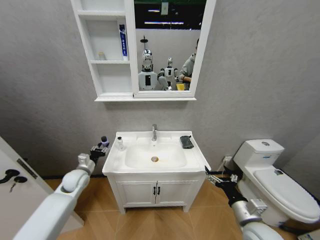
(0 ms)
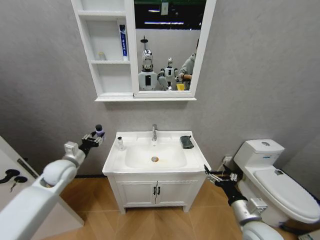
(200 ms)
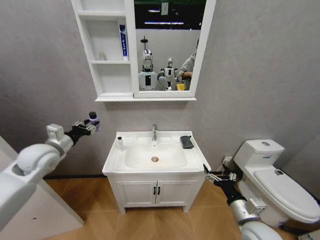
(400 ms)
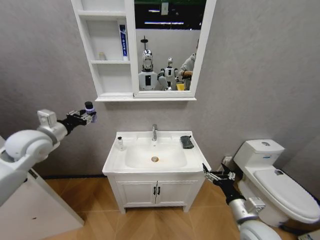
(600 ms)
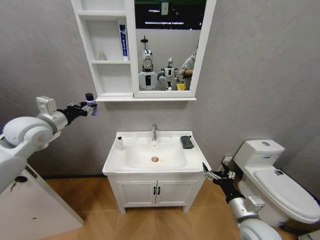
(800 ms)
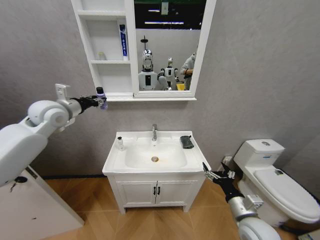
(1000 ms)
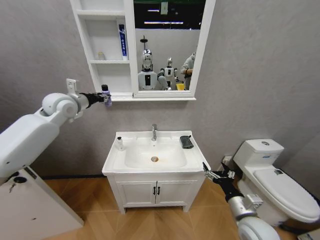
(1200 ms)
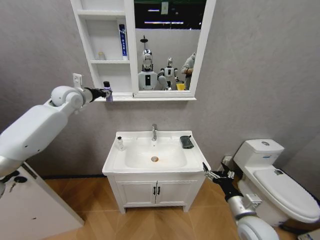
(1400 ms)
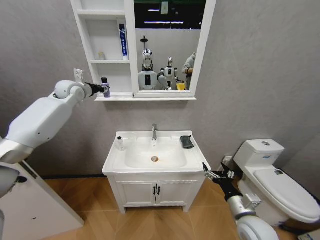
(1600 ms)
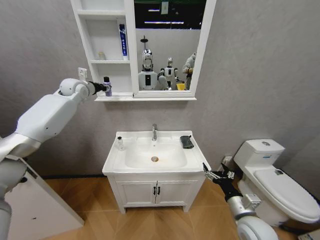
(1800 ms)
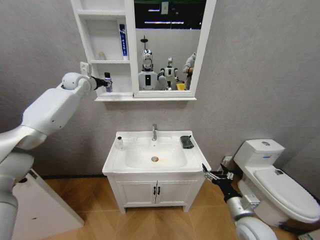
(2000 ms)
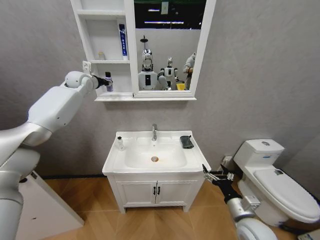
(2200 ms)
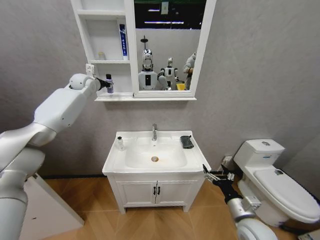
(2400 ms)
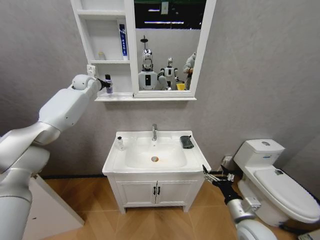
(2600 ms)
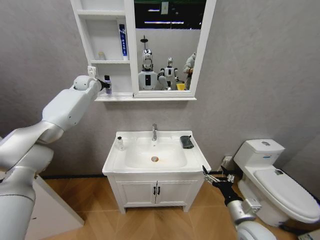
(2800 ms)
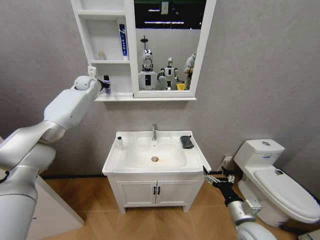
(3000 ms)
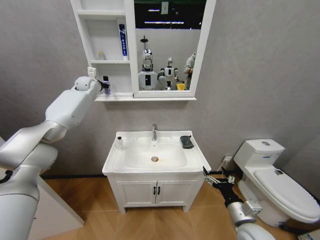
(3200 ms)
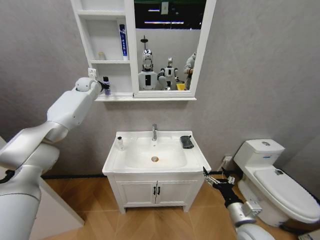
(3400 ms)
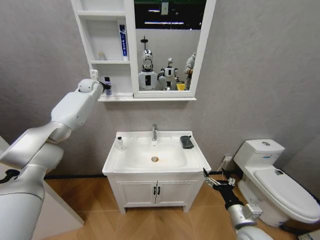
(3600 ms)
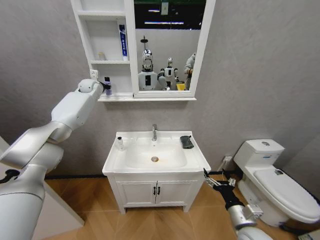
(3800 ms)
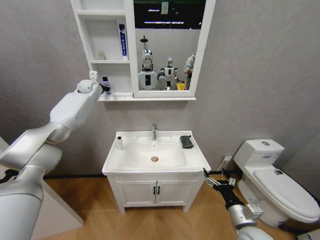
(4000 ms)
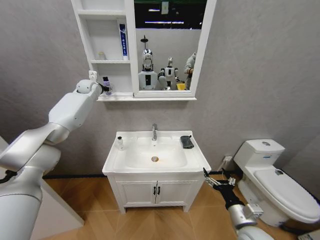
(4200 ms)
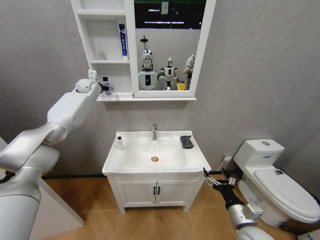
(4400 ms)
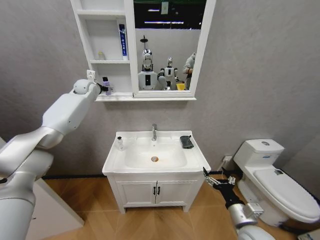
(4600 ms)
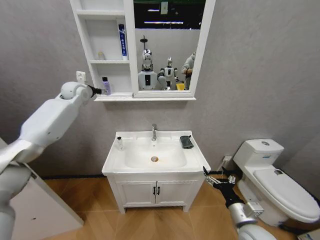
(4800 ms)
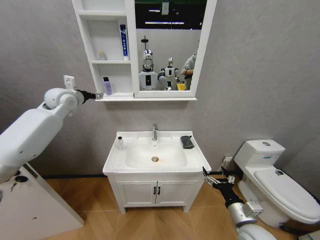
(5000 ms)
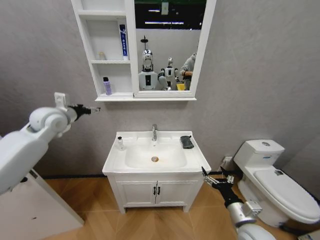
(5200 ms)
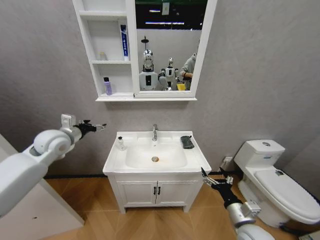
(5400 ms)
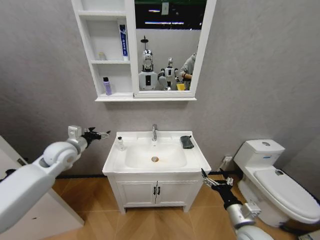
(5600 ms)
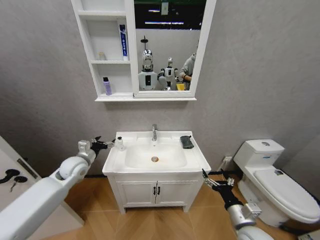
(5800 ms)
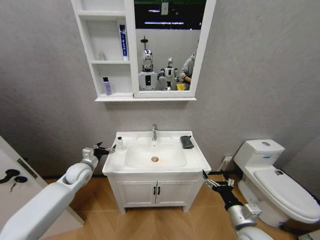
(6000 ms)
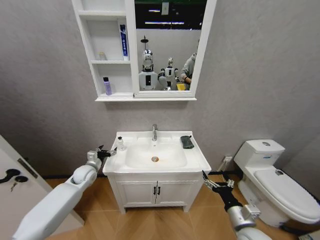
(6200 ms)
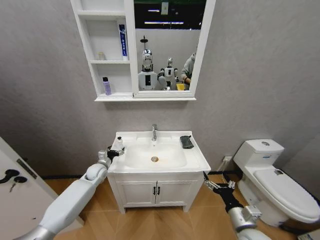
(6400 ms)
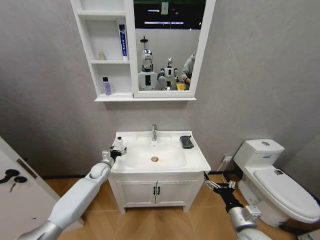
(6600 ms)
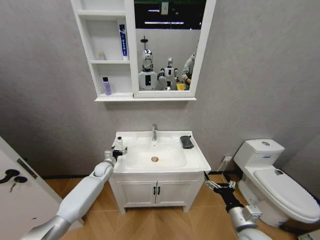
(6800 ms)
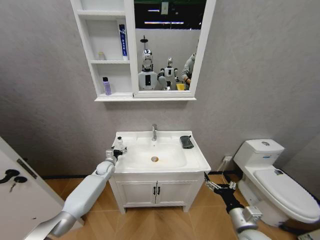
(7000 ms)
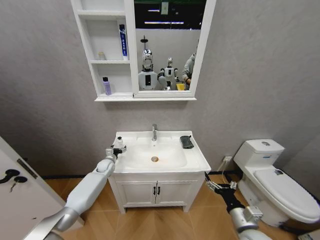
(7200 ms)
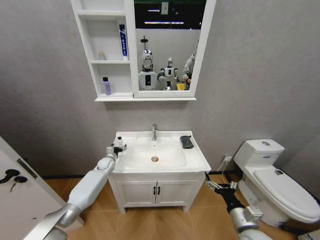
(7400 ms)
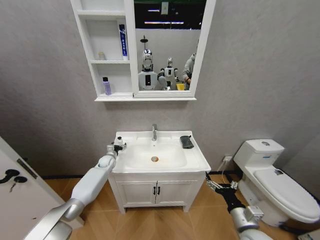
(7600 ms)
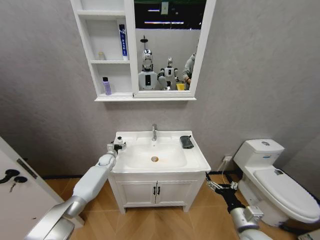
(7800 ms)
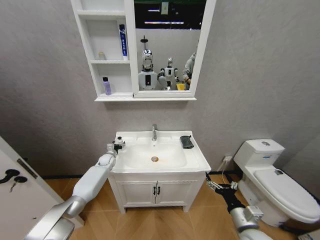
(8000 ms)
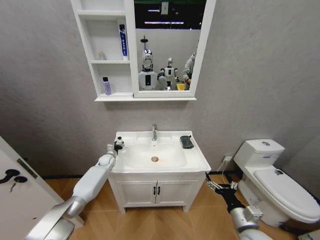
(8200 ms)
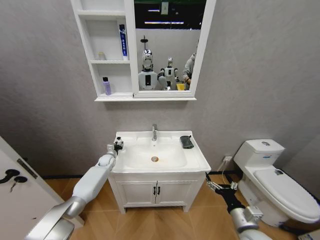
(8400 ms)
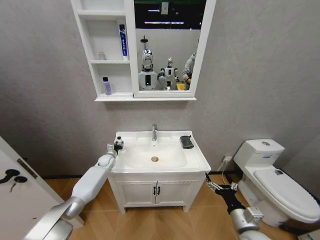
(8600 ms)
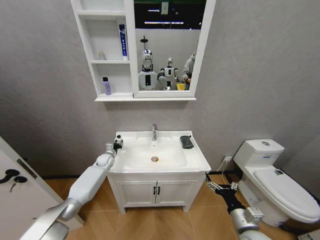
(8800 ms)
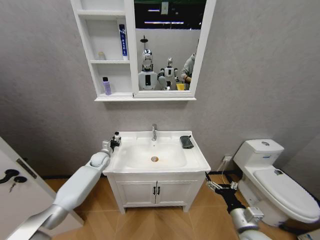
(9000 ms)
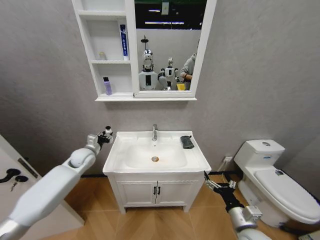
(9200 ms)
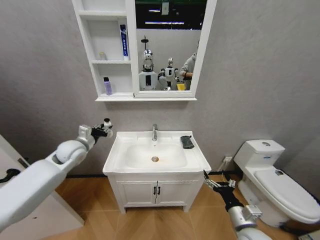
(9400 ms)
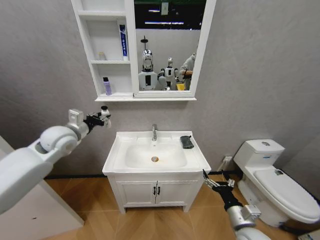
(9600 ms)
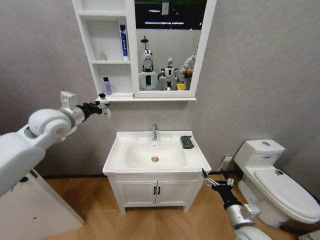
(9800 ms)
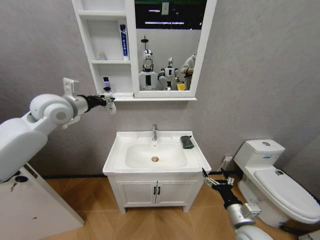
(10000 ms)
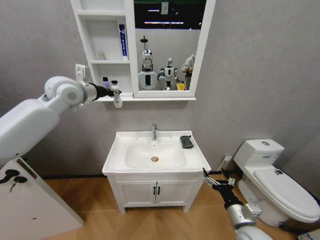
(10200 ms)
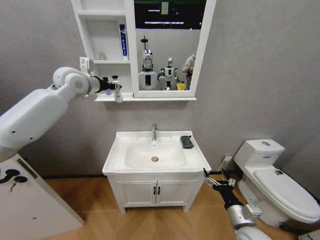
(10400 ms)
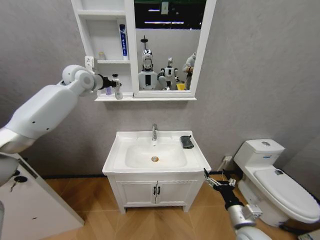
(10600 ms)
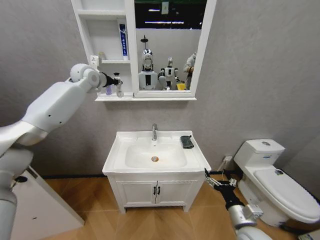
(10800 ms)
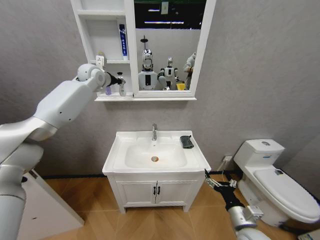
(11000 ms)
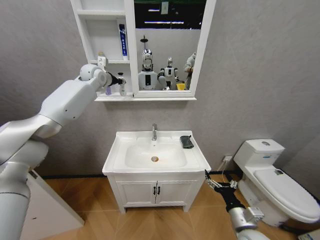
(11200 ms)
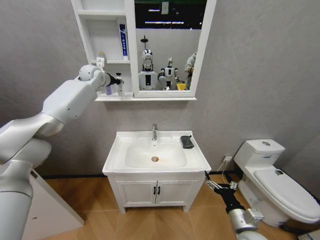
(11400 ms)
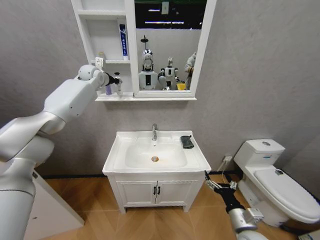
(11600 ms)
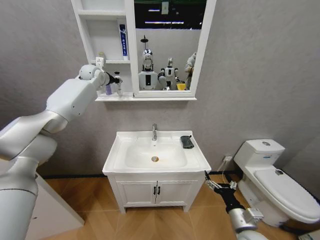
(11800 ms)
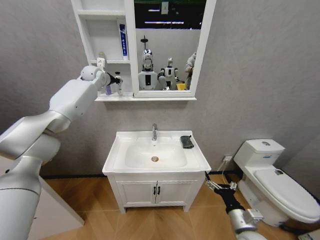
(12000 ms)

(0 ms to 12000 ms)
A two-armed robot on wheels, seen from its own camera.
Task of the whole recording: Move facial cleanser and shampoo from washbasin to cabinet, then wipe washbasin with towel.
0 ms - 1600 ms: The left gripper is displaced upward and forward by about 40 cm.
1600 ms - 3000 ms: The left gripper goes about 10 cm forward.
3000 ms - 4400 ms: The left gripper opens its fingers.
4400 ms - 6000 ms: The left gripper shifts about 40 cm downward and backward.
6000 ms - 7600 ms: The left gripper travels forward and downward by about 20 cm.
7600 ms - 9000 ms: The left gripper travels upward by some 5 cm, and closes.
9000 ms - 10400 ms: The left gripper moves upward, some 40 cm.
10400 ms - 12000 ms: The left gripper moves forward, roughly 15 cm.

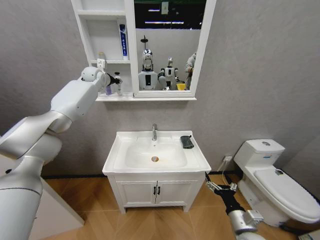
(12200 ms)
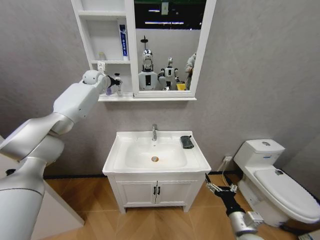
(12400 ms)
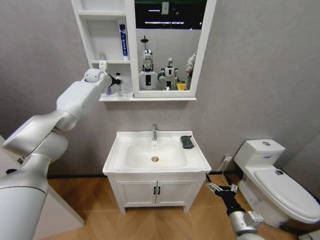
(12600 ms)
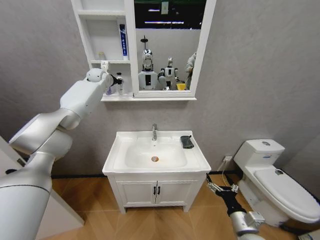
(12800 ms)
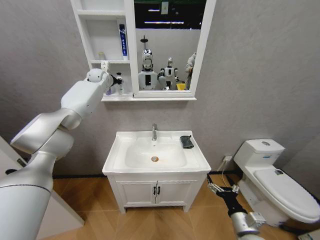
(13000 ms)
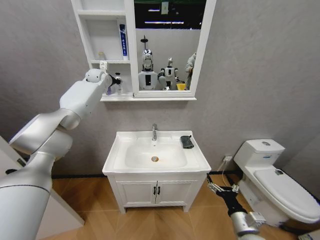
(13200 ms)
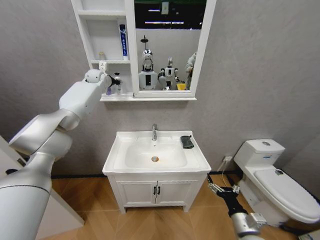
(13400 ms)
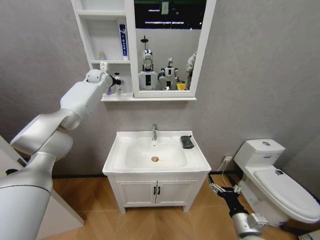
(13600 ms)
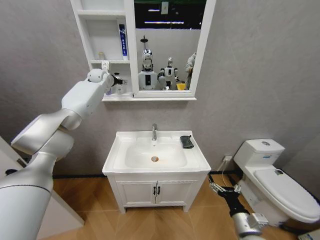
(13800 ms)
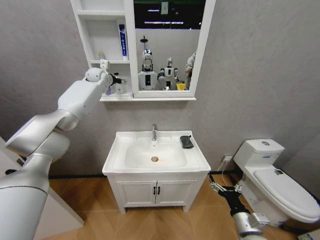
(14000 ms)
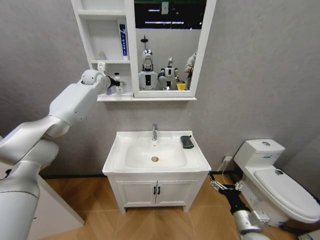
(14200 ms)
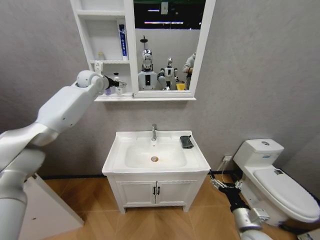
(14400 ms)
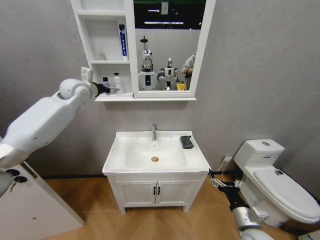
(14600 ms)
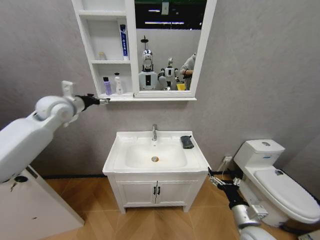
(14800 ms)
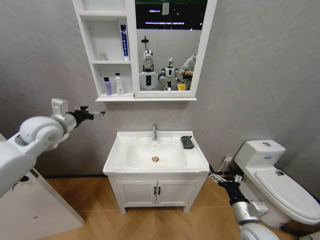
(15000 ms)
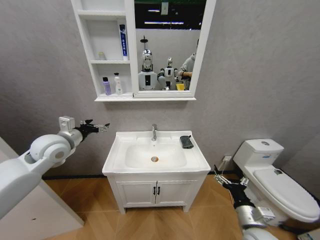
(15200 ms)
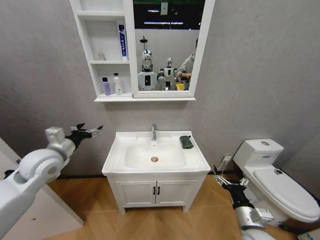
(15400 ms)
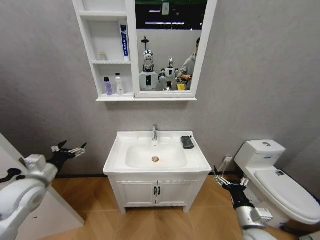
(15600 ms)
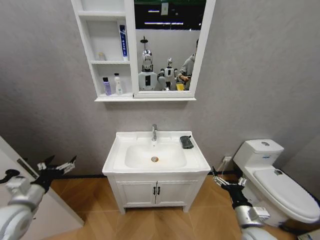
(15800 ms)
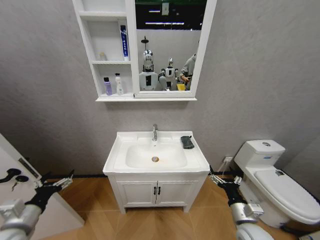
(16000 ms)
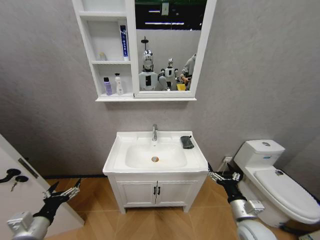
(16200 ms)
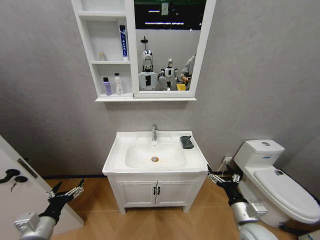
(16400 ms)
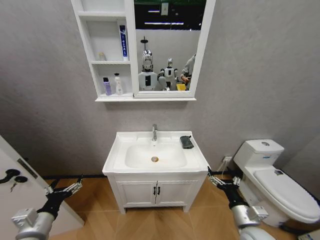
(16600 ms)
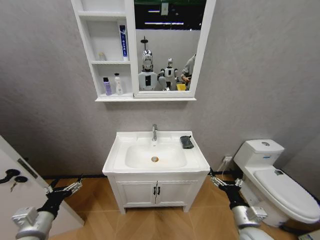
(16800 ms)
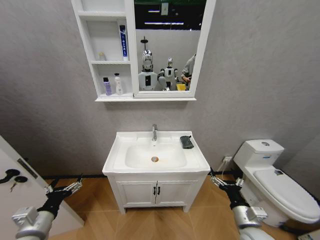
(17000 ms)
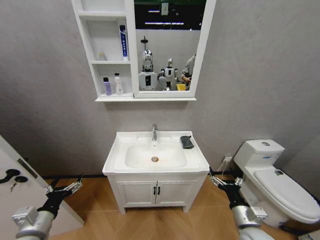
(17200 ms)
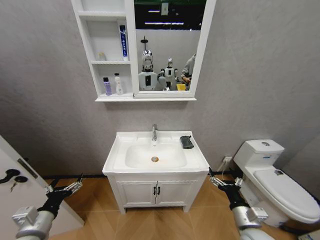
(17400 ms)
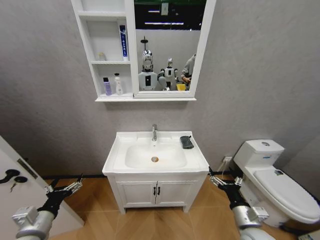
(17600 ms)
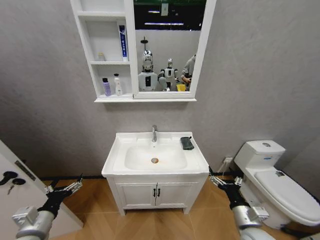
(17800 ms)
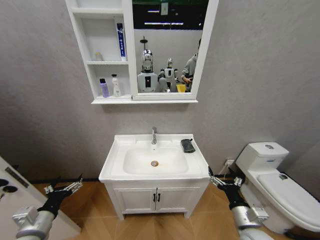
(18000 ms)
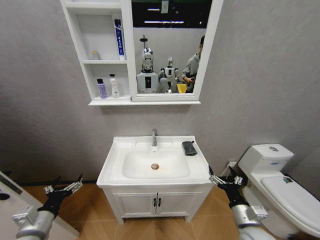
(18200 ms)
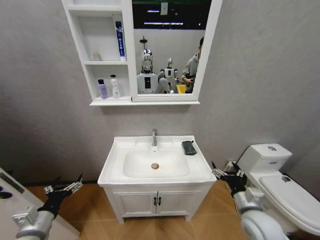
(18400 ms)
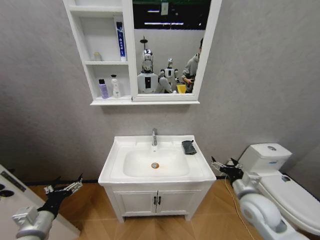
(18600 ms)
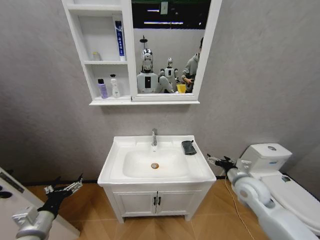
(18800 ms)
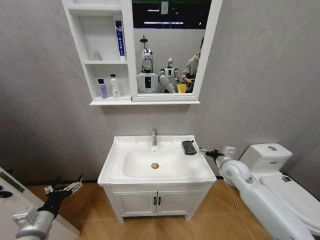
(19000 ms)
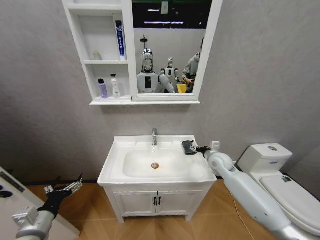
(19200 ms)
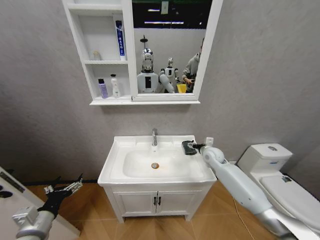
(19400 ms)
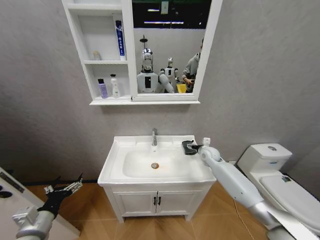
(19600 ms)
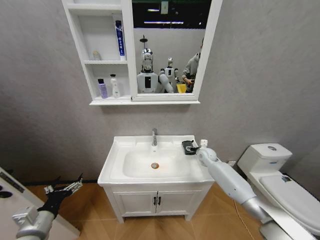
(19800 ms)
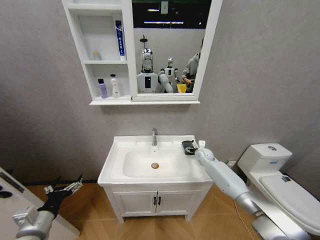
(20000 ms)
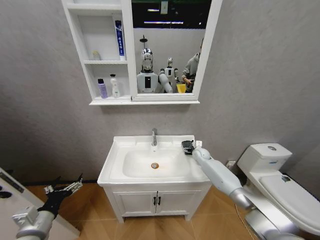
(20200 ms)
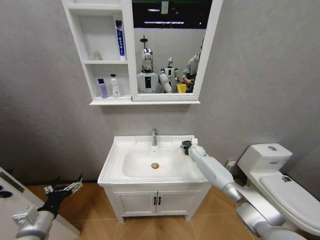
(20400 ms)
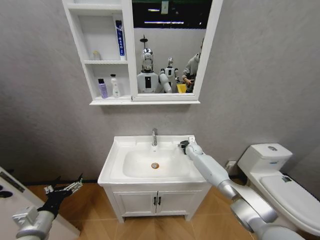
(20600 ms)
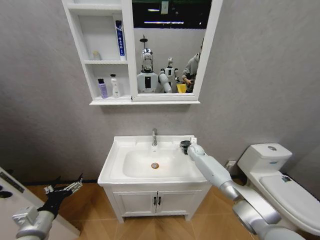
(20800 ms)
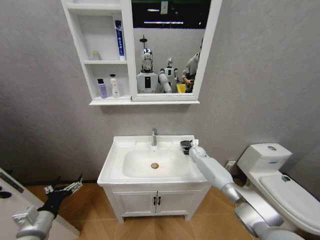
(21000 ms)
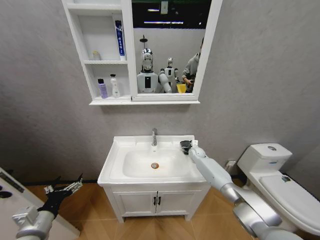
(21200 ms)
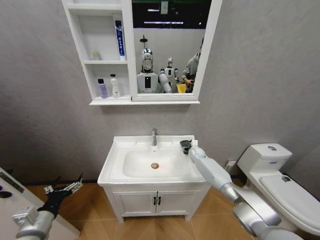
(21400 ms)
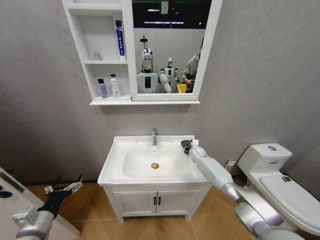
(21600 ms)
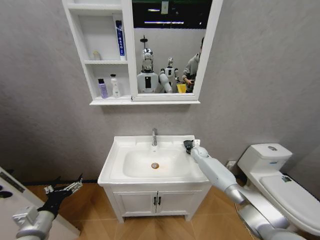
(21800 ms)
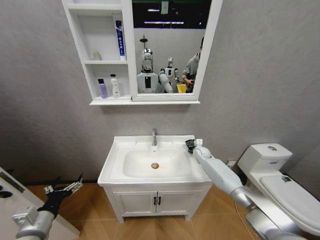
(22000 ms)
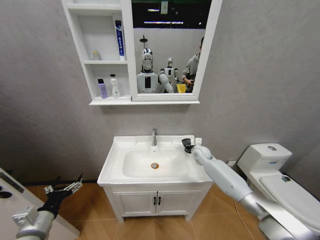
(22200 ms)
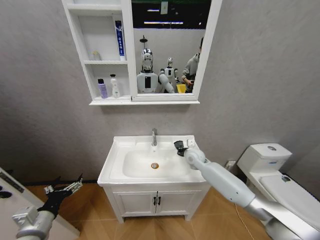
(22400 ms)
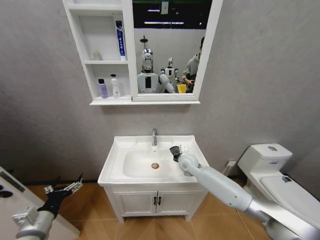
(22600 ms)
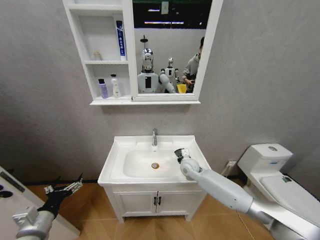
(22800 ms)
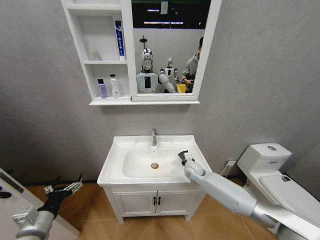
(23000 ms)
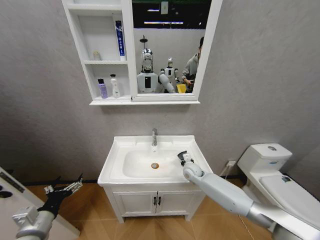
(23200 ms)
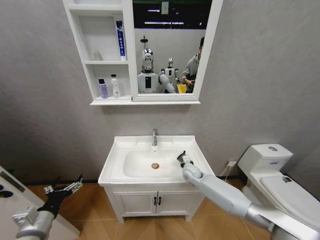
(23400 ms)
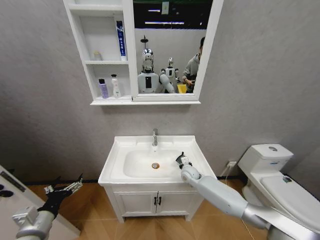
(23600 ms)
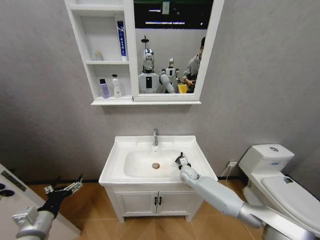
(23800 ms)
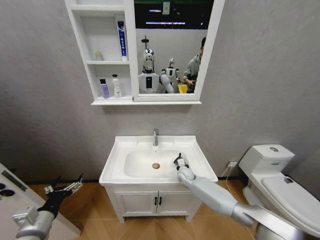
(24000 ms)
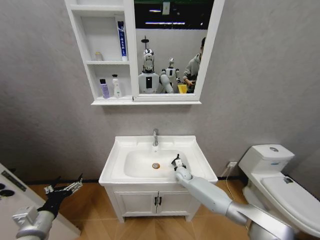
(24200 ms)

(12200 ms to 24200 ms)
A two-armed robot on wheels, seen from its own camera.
Task of the whole recording: Move facial cleanser and shampoo from washbasin to cabinet, then wipe washbasin with towel.
12200 ms - 13800 ms: The left gripper opens.
13800 ms - 15200 ms: The left gripper is displaced backward and downward by approximately 35 cm.
15200 ms - 16600 ms: The left gripper goes roughly 30 cm backward and downward.
18200 ms - 19800 ms: The right gripper shifts about 35 cm forward.
19800 ms - 21200 ms: The right gripper travels forward by approximately 5 cm.
21200 ms - 22600 ms: The right gripper goes roughly 20 cm backward, to the left and upward, and closes.
22600 ms - 24200 ms: The right gripper travels downward by some 15 cm.
